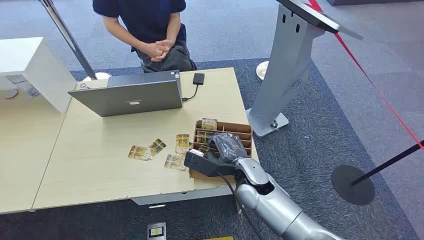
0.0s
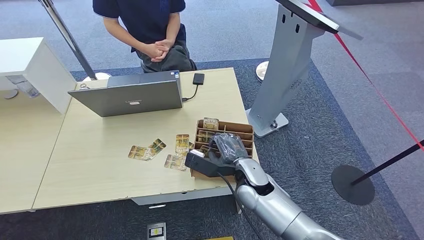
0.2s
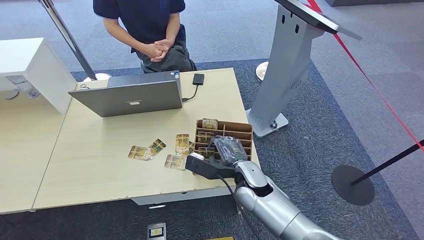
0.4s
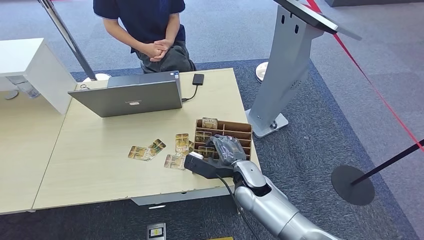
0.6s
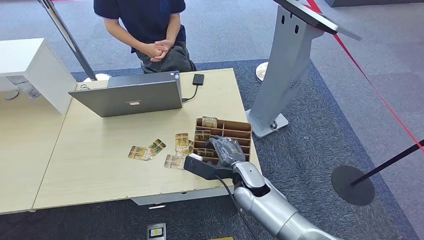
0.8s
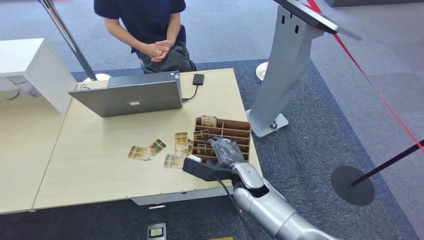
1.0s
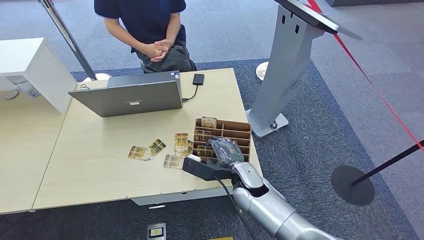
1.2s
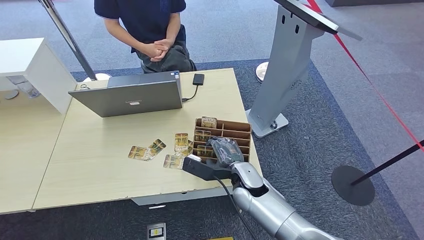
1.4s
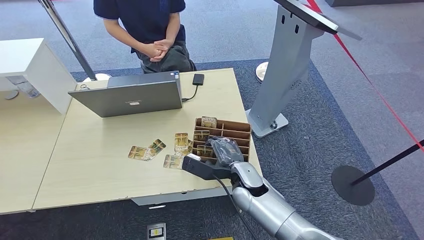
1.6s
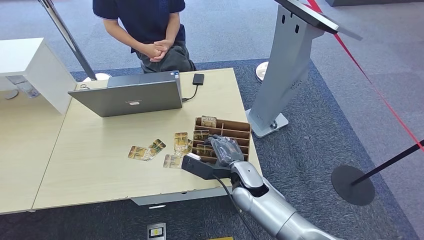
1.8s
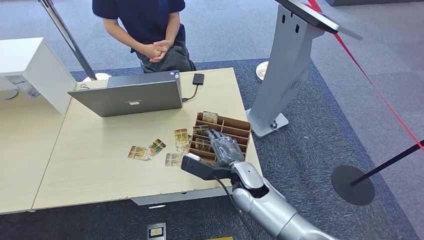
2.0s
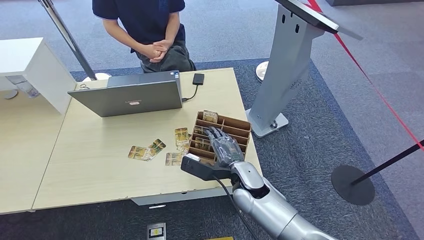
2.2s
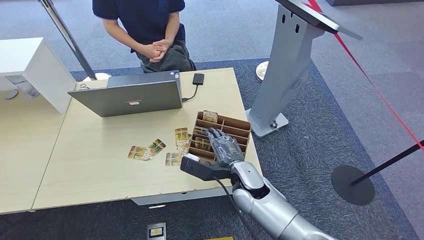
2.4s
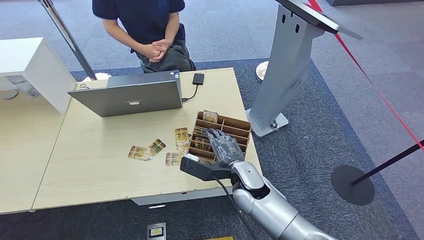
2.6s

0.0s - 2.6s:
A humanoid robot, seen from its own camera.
Step, 0.0s - 2.6s: Pick up the key card from the card box.
1.2s - 2.6s: There are only small adjustments of the hands.

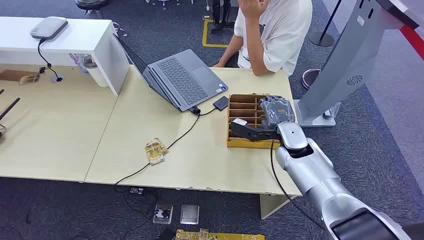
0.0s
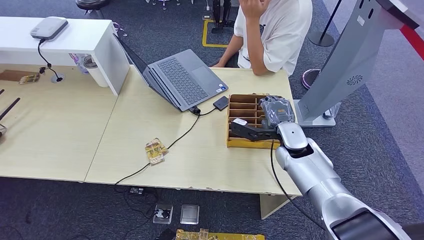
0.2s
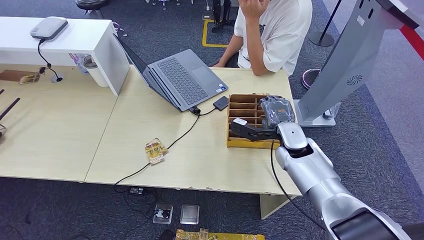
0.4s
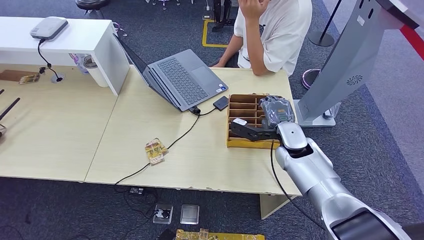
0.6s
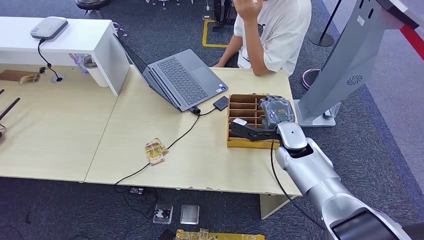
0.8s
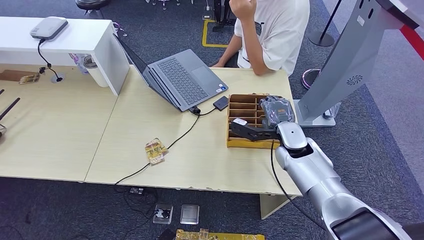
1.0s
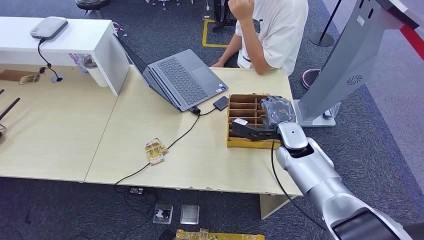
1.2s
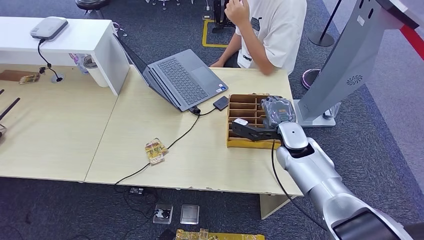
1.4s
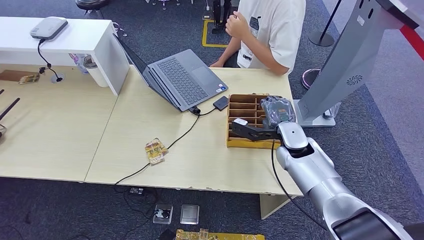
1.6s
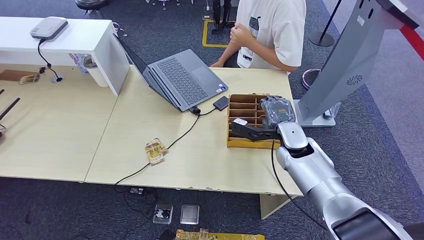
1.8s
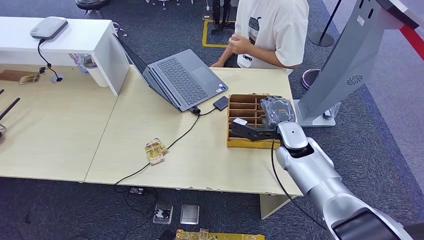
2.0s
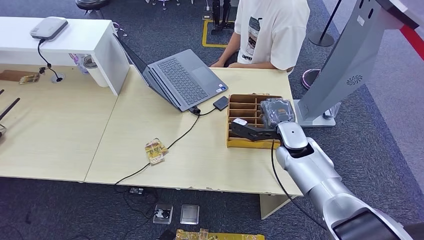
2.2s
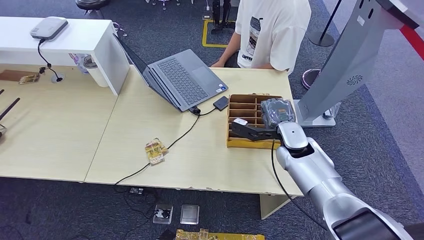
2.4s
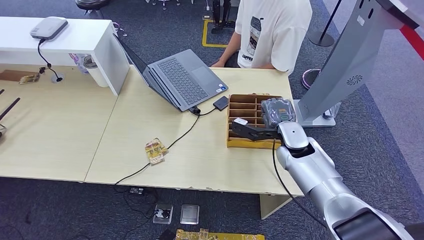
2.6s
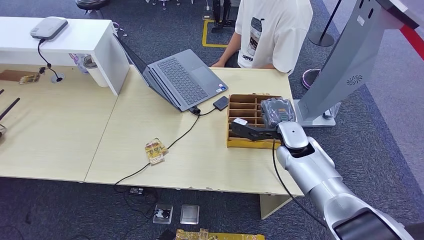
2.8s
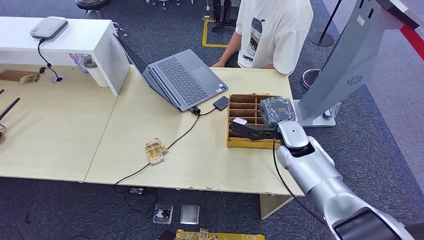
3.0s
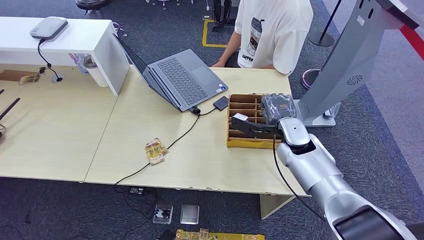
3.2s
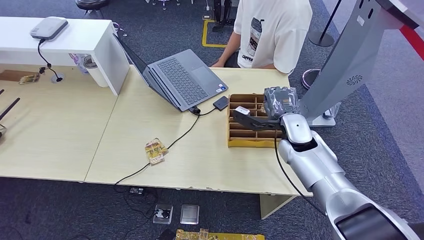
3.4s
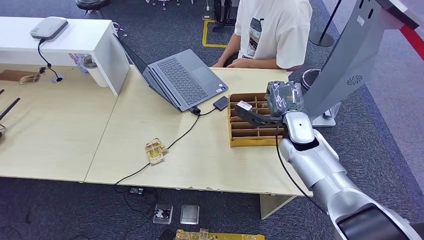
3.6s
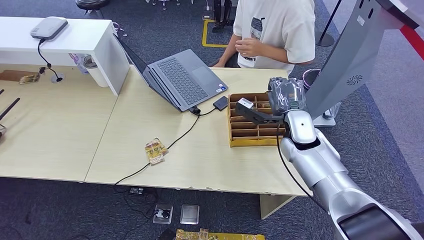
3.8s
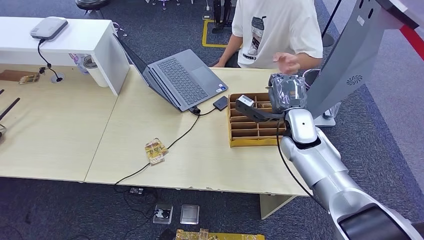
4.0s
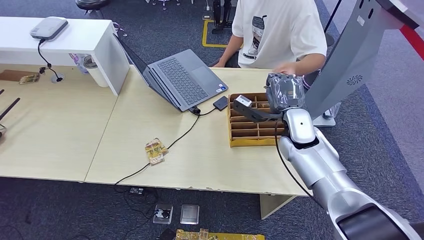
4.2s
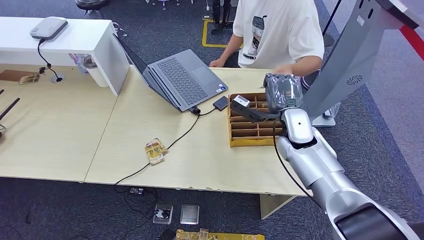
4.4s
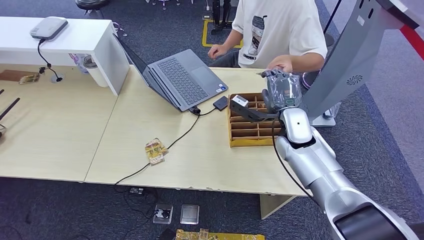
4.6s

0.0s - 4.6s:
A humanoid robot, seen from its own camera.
Step, 0.0s - 3.6s: Pick up the key card from the card box.
Step, 3.8s - 4.6s: Hand the key card to the target.
1.6s - 3.0s: Neither hand changes place.
